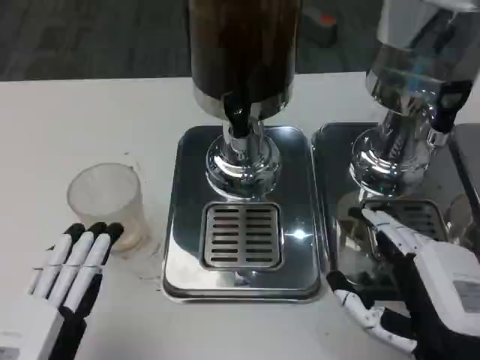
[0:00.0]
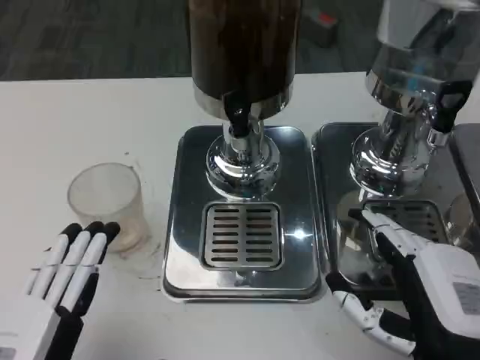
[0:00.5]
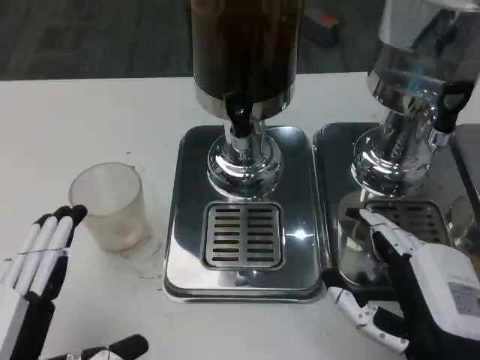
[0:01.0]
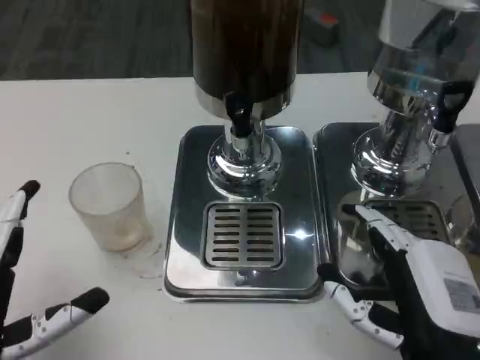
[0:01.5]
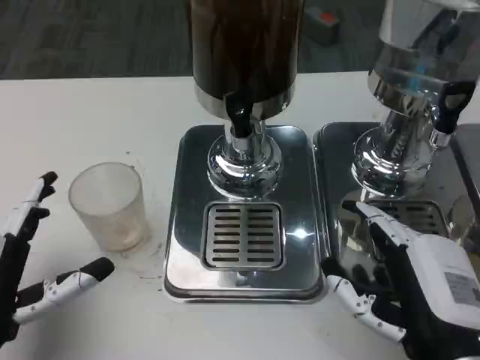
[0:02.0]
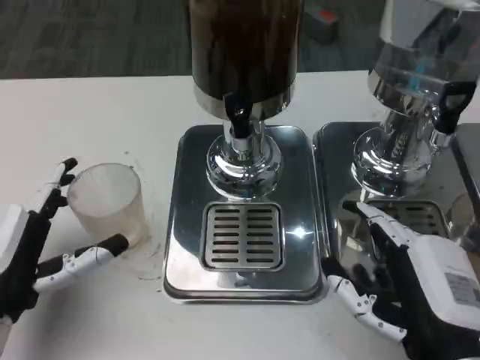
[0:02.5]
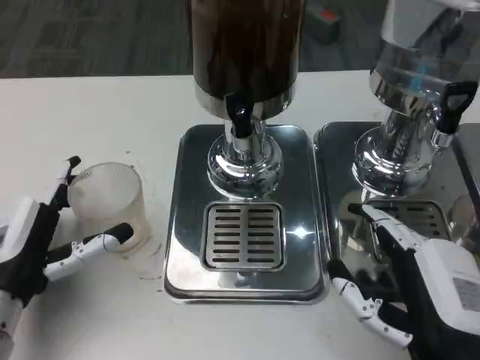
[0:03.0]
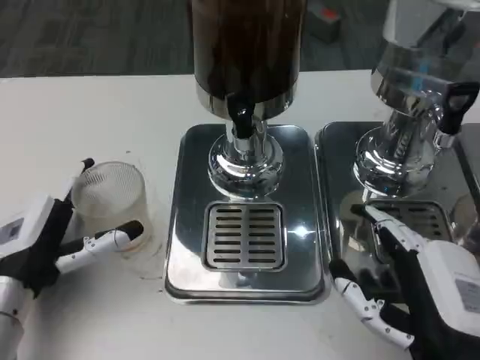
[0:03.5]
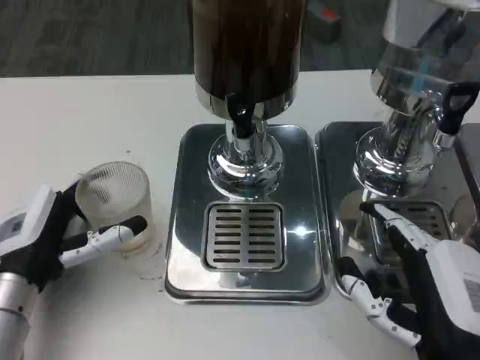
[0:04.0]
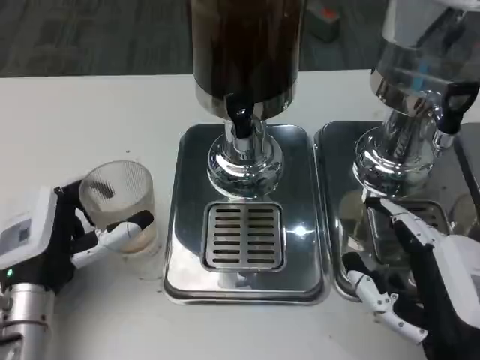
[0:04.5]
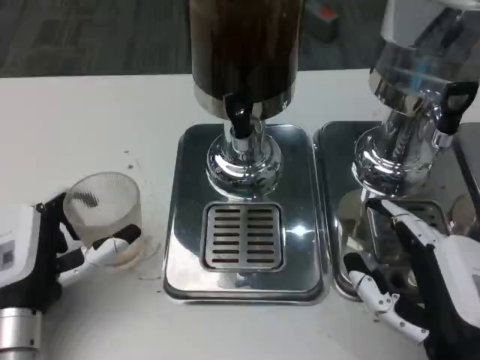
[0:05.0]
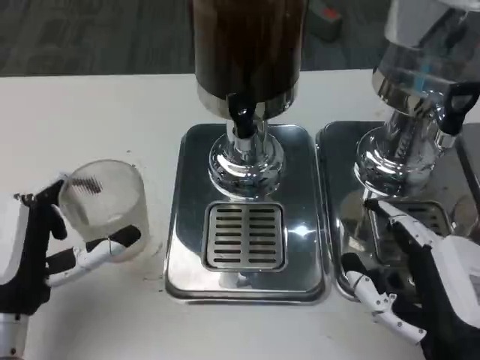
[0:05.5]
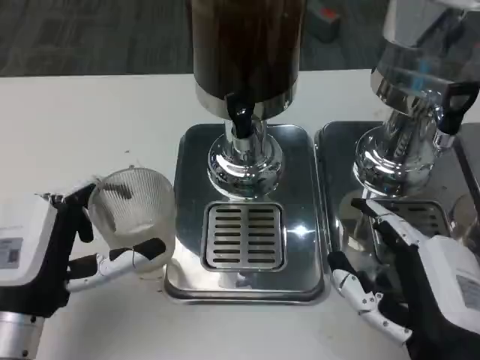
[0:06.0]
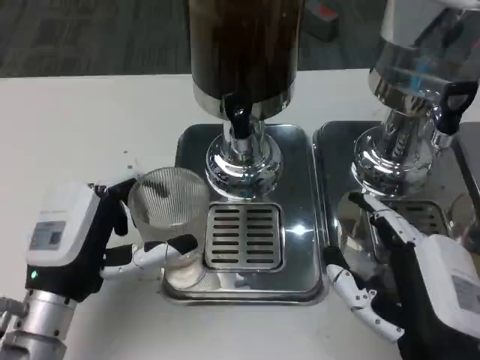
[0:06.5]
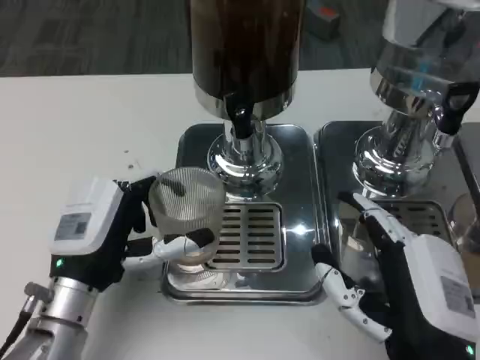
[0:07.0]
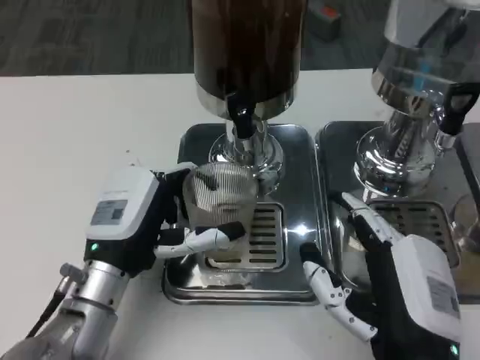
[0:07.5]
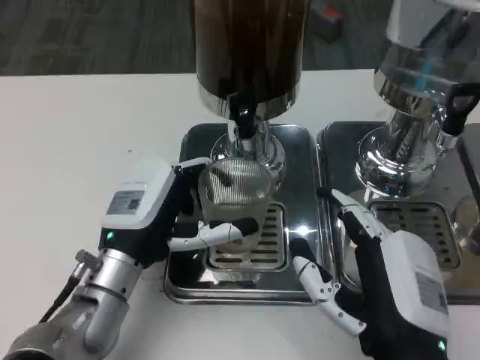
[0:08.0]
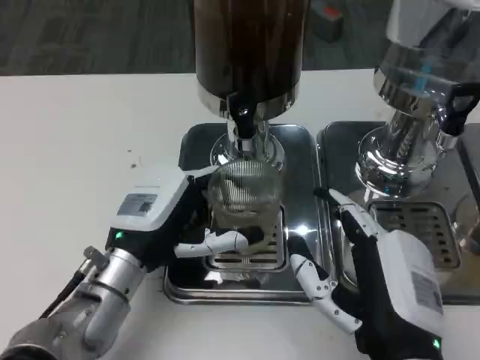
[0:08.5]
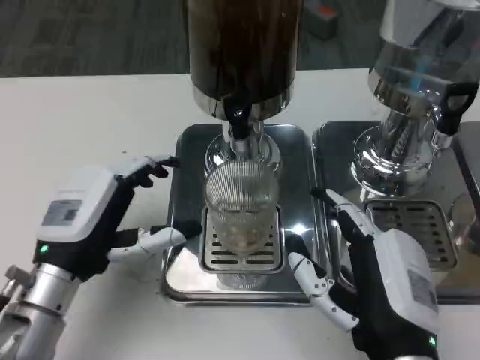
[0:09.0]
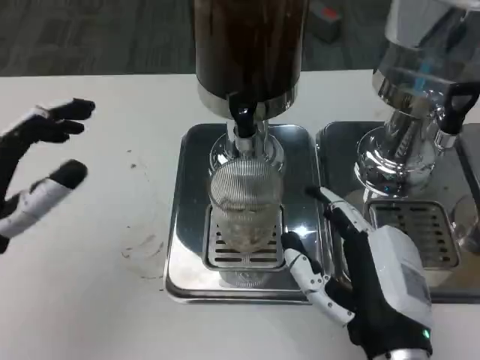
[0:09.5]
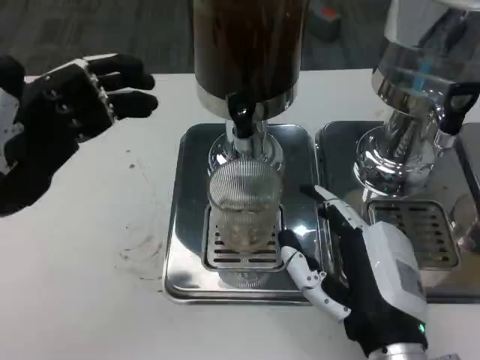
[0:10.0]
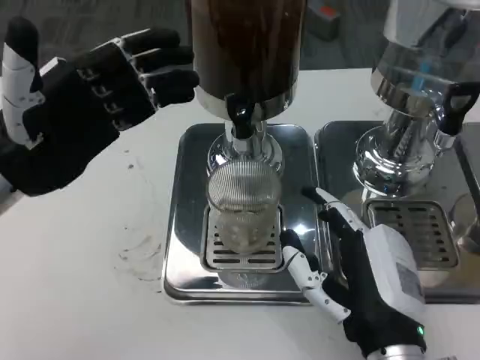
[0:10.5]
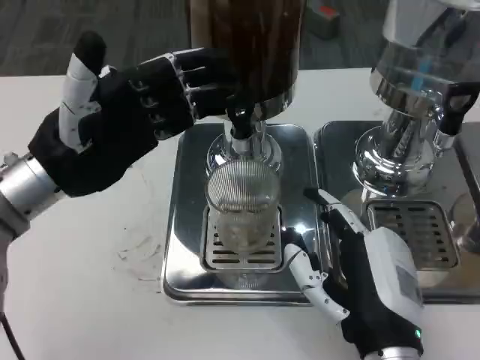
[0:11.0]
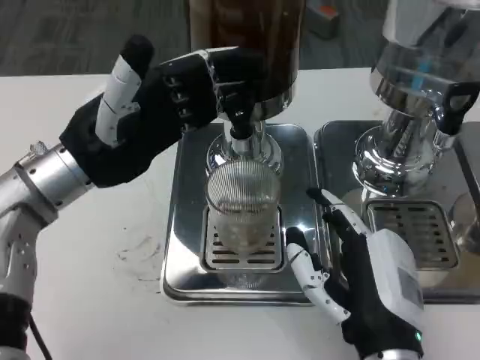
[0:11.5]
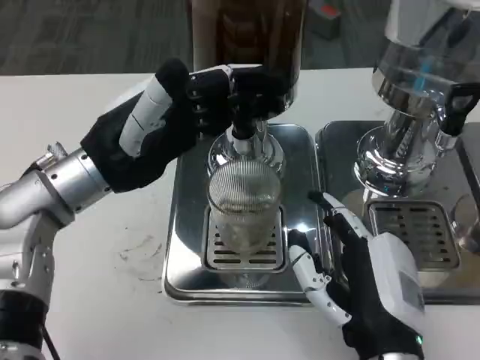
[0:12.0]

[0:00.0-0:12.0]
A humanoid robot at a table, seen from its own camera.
Task of the whole recording: Grasp the cup under the faucet to collect the drink, then remove the cup.
0:00.0 to 0:02.0: The left hand moves forward, approximately 5 cm.
0:02.0 to 0:04.0: The left hand shifts approximately 10 cm forward.
0:06.0 to 0:08.0: The left hand is displaced to the right and forward by approximately 10 cm.
0:08.0 to 0:10.0: The left hand is displaced to the left and upward by some 20 cm.
0:10.0 to 0:12.0: The left hand heads to the right, covering about 10 cm.

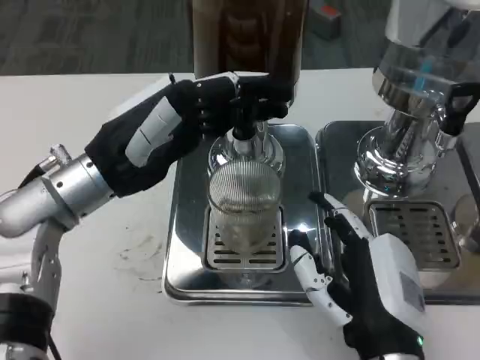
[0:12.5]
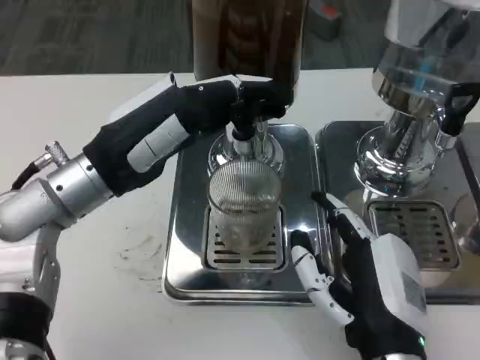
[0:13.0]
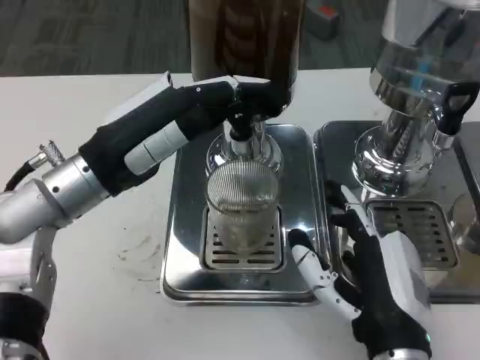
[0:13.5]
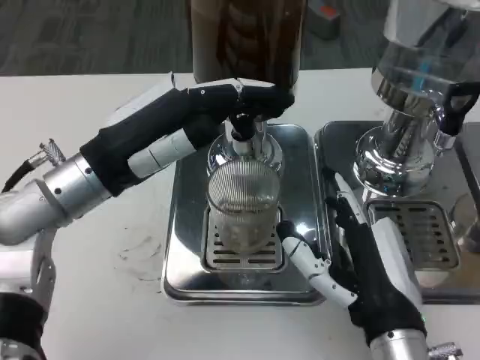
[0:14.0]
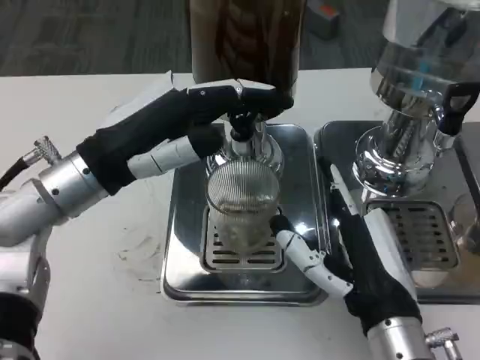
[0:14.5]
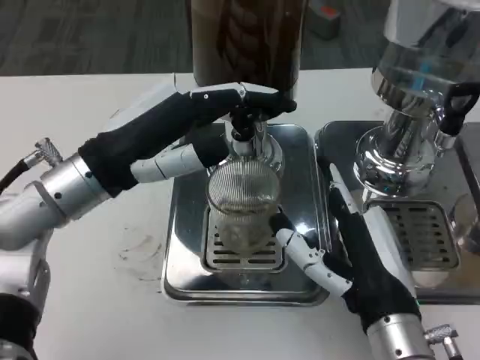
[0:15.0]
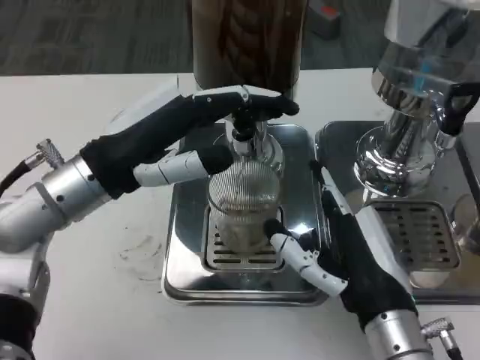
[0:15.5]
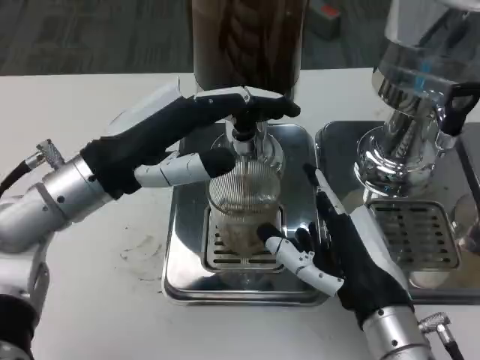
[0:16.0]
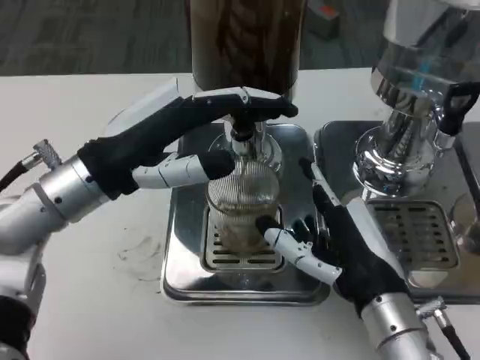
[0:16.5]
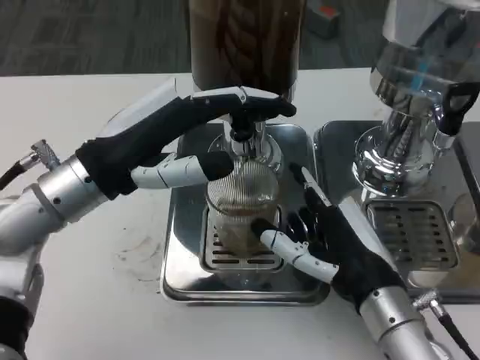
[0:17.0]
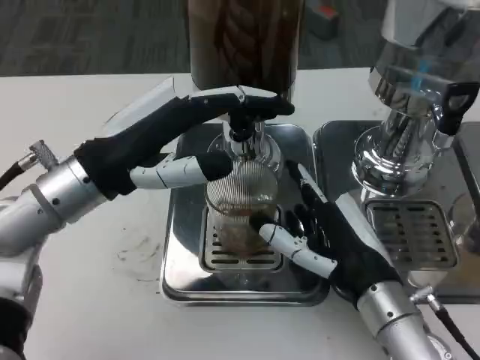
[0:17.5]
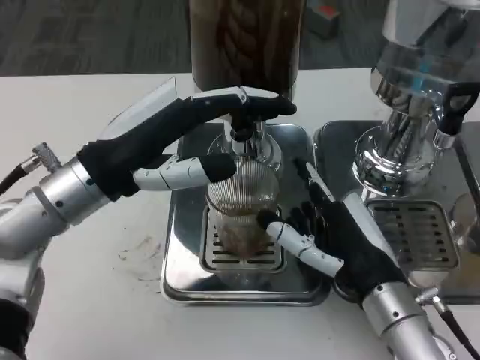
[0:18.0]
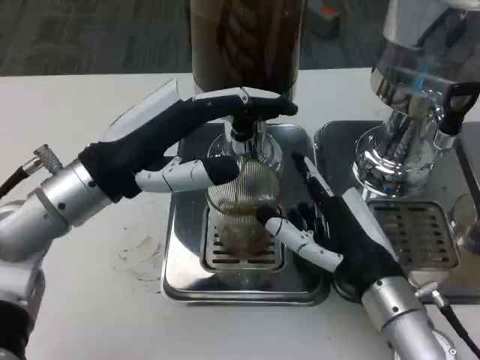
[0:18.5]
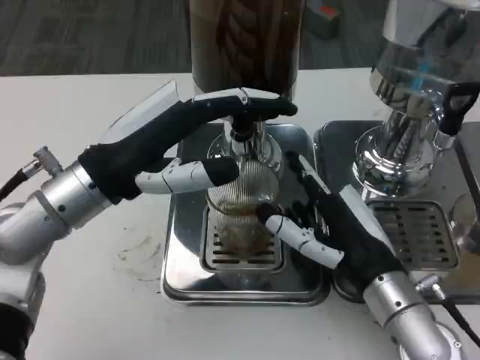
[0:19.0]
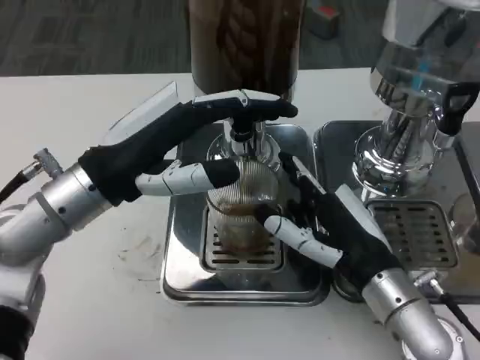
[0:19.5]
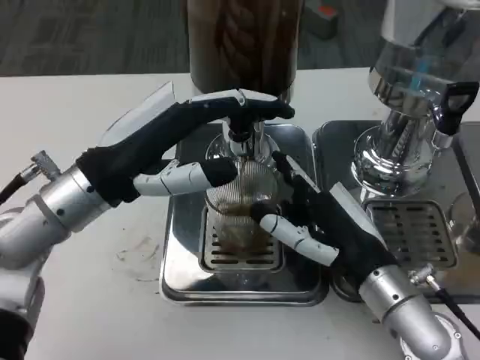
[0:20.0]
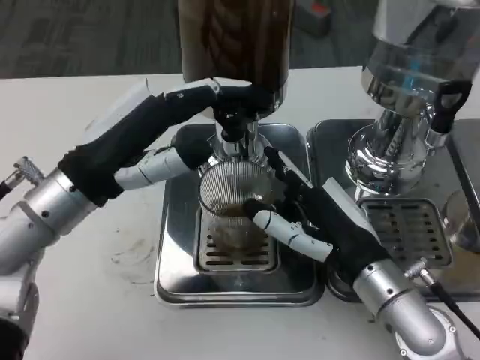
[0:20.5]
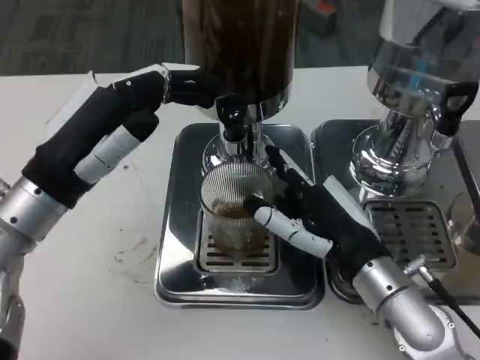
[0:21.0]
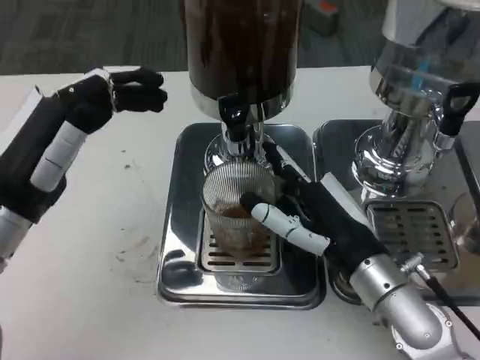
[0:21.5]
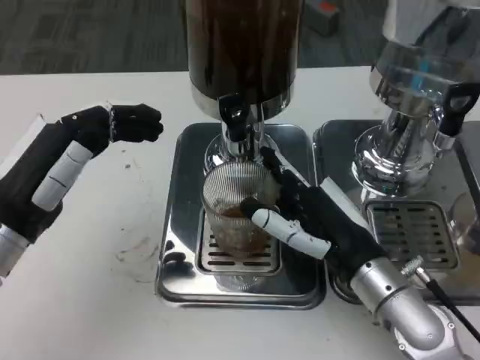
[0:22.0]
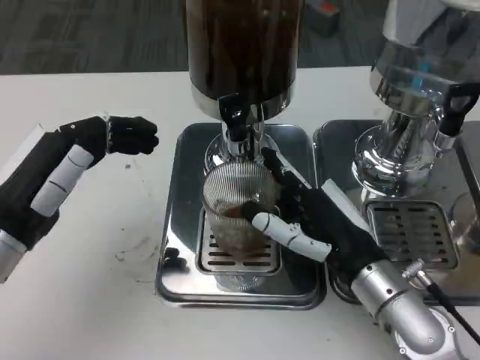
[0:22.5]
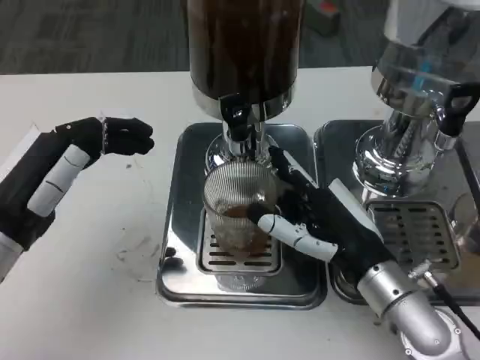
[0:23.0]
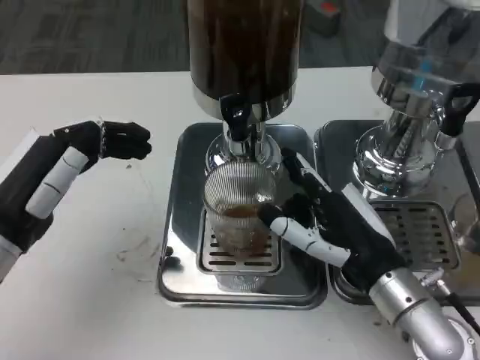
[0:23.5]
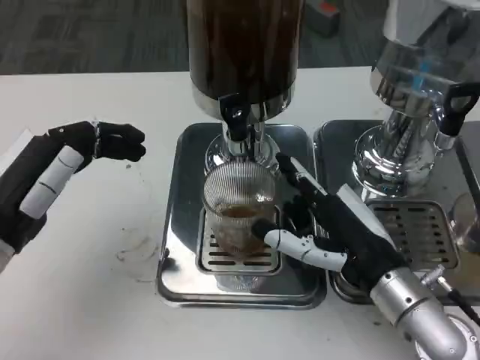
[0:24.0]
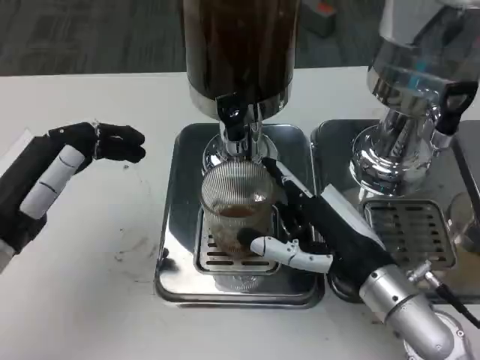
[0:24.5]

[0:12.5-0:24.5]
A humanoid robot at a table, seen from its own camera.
Task of the whole recording: Grasp the cup under the faucet to collect the drink, then remove the cup.
0:14.5 to 0:18.5: The hands stay close to where they were, moving slightly.
0:20.5 to 0:22.5: The left hand shifts about 5 cm to the left.
0:22.5 to 0:24.5: There are only small adjustments of the hands.

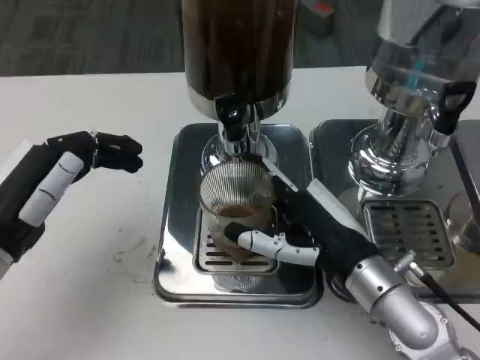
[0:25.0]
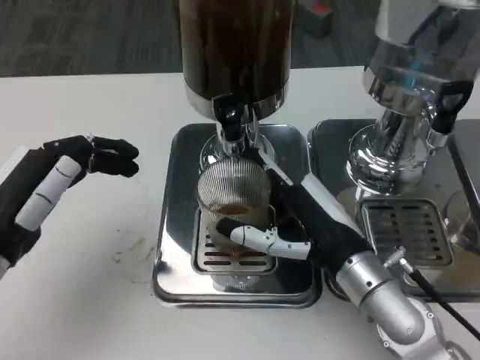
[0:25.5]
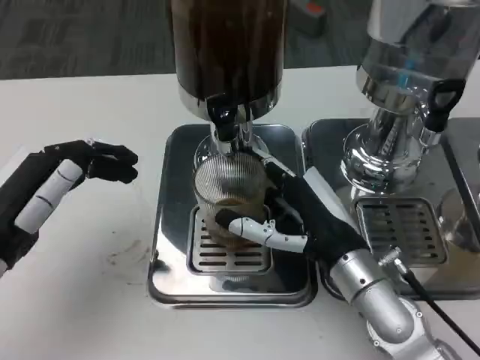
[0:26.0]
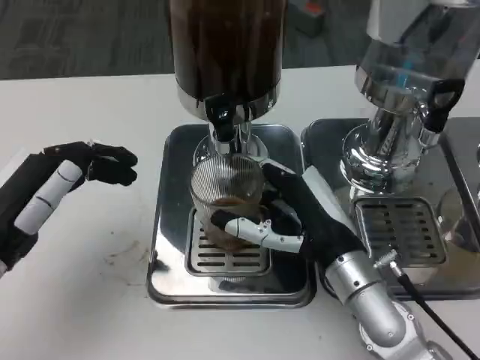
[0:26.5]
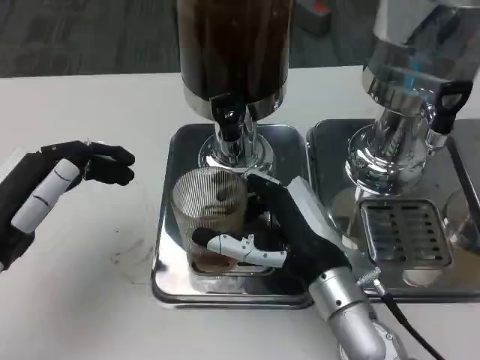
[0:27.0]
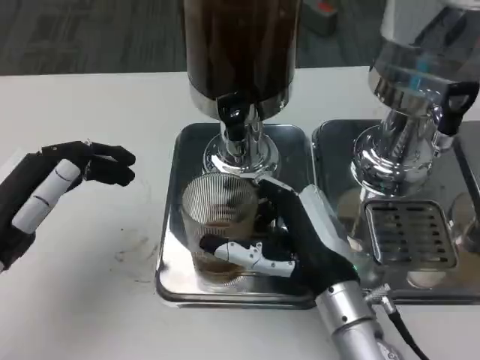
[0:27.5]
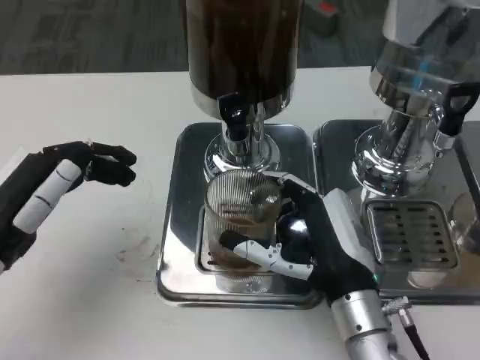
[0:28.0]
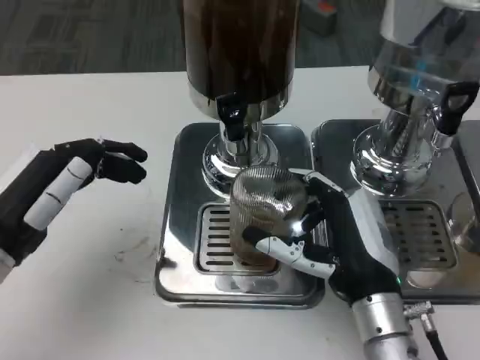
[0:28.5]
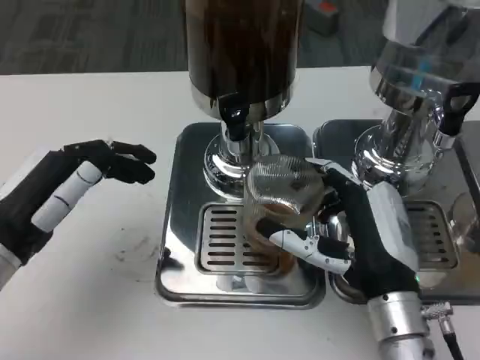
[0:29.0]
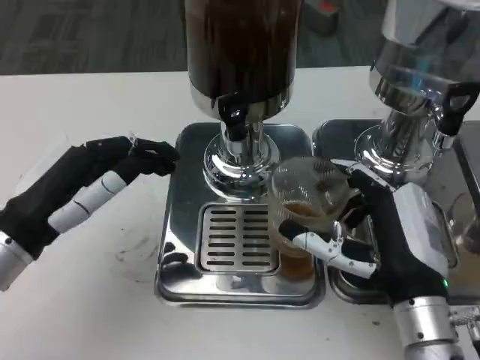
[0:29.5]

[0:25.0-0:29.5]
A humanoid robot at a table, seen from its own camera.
Task of the whole recording: Grasp the cup under the faucet to collect the drink, then remove the cup.
0:25.0 to 0:27.0: The right hand ends up some 5 cm from where it was.
0:27.0 to 0:29.5: The right hand heads to the right, covering about 5 cm.
